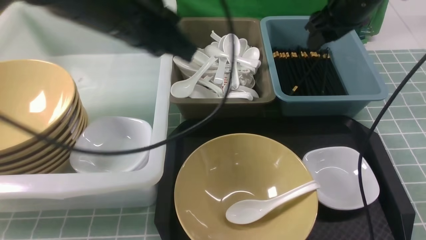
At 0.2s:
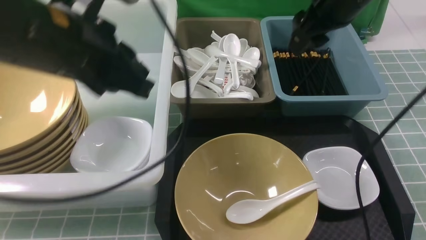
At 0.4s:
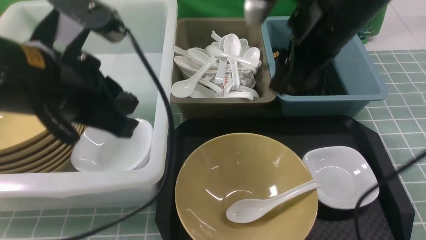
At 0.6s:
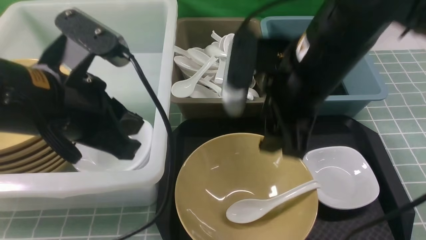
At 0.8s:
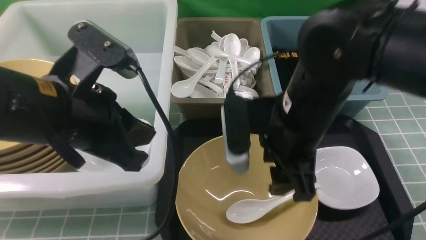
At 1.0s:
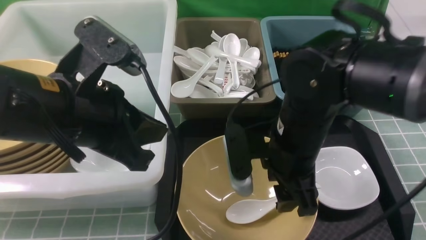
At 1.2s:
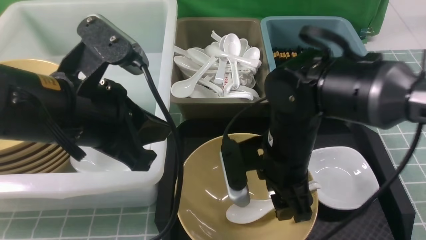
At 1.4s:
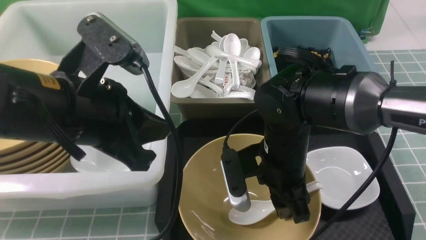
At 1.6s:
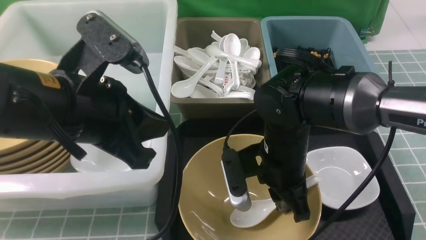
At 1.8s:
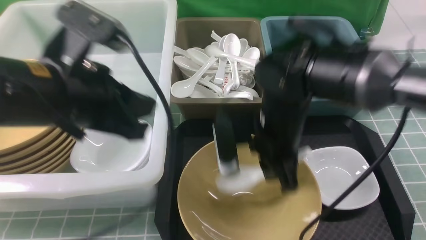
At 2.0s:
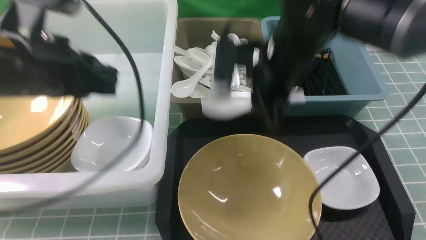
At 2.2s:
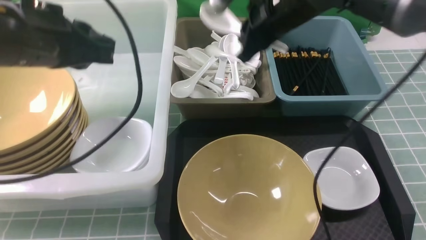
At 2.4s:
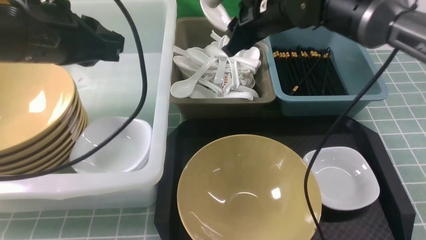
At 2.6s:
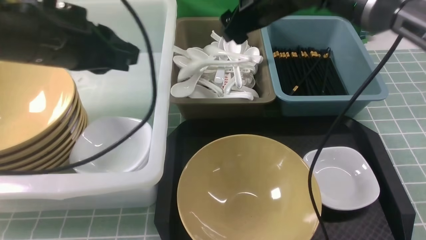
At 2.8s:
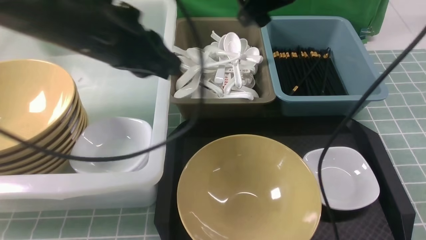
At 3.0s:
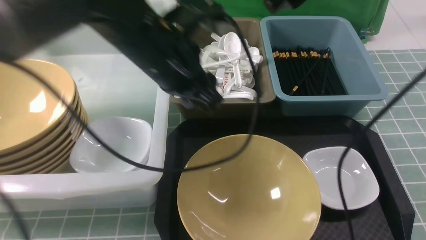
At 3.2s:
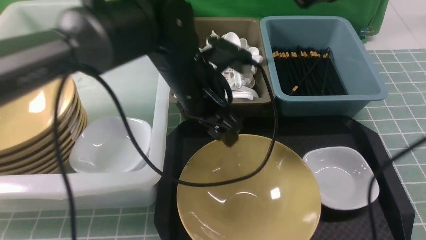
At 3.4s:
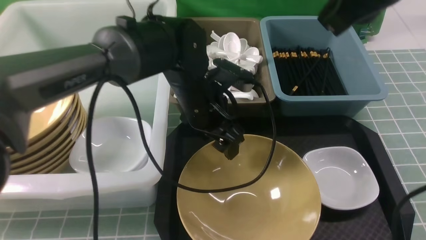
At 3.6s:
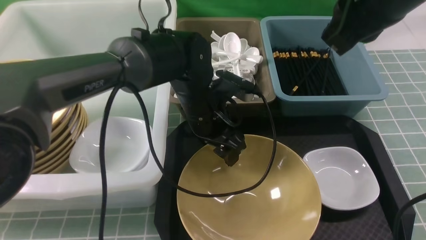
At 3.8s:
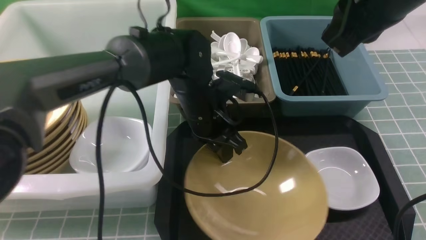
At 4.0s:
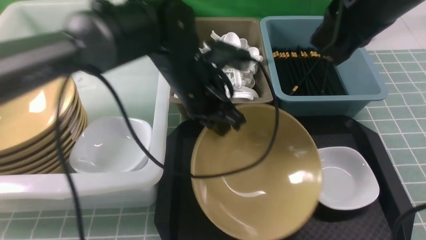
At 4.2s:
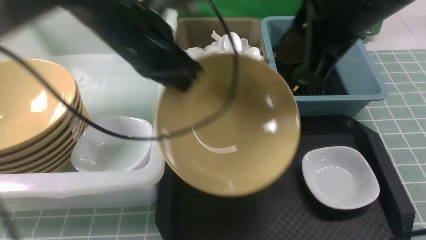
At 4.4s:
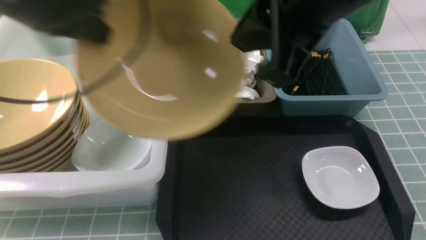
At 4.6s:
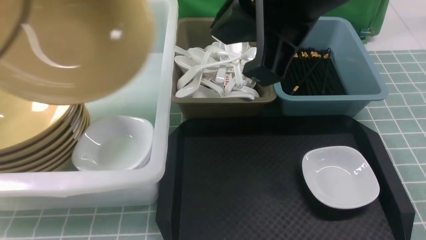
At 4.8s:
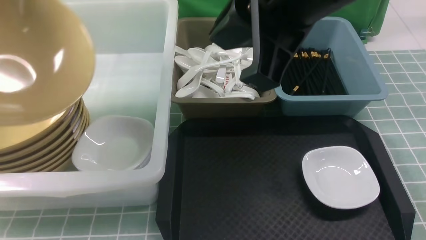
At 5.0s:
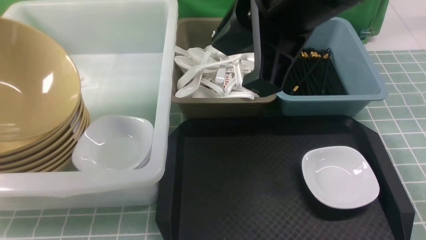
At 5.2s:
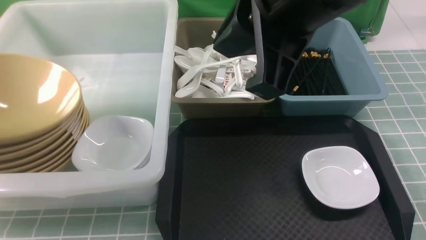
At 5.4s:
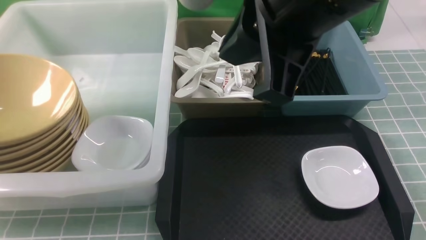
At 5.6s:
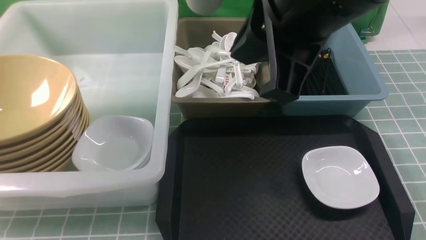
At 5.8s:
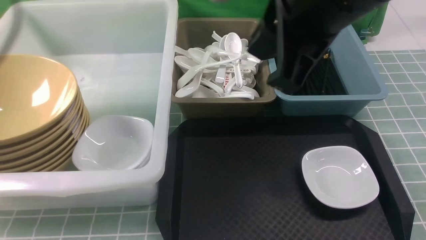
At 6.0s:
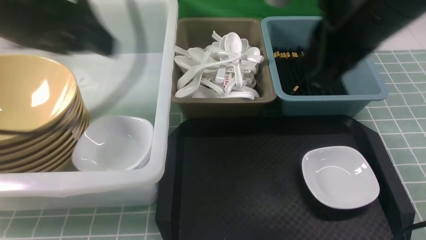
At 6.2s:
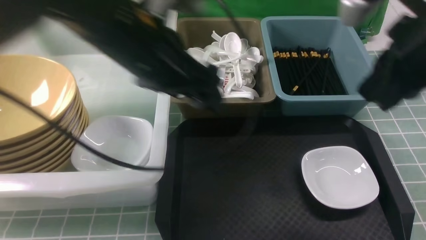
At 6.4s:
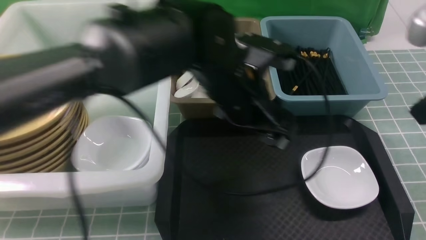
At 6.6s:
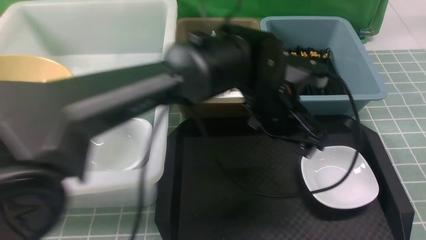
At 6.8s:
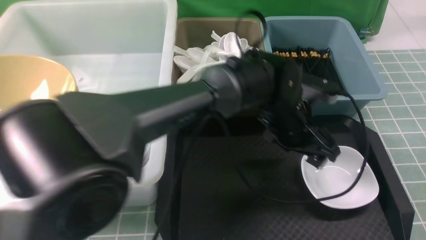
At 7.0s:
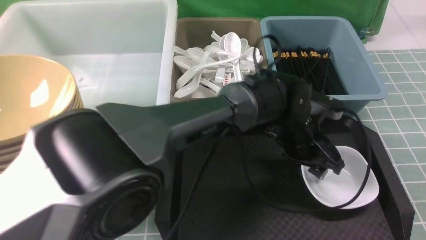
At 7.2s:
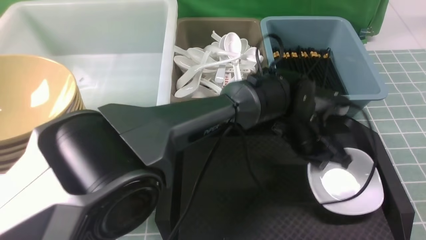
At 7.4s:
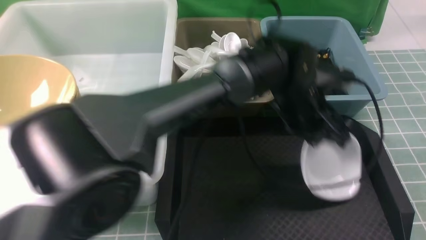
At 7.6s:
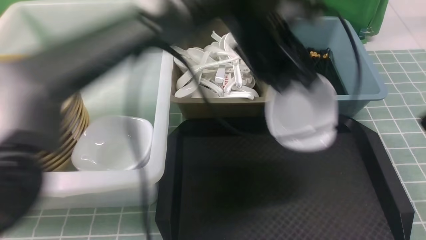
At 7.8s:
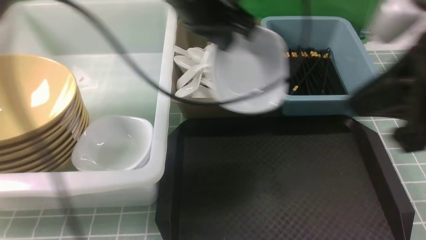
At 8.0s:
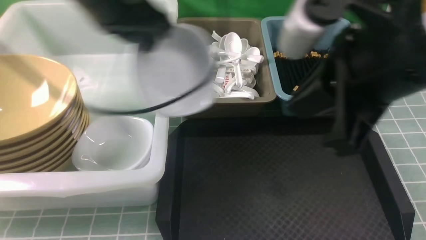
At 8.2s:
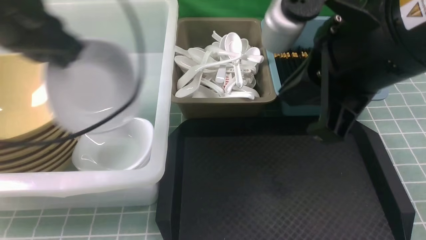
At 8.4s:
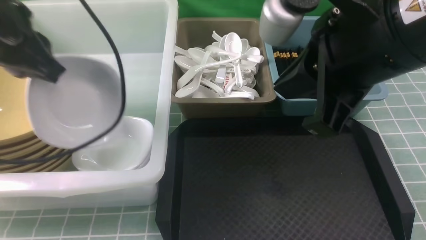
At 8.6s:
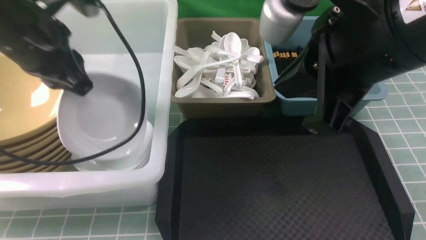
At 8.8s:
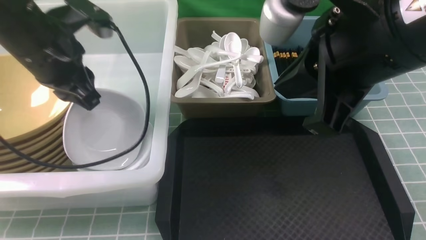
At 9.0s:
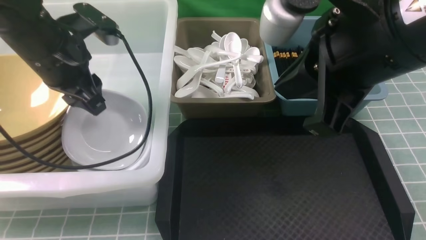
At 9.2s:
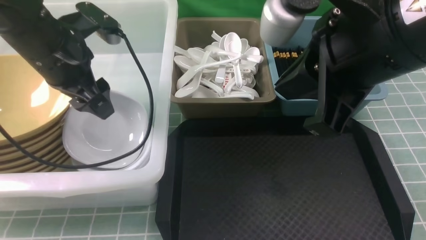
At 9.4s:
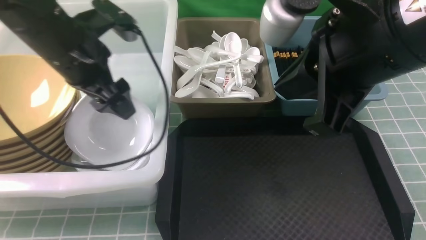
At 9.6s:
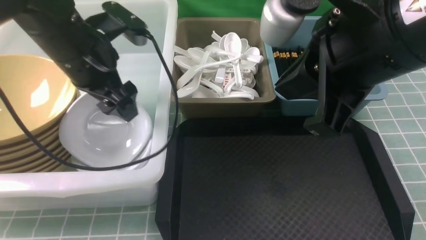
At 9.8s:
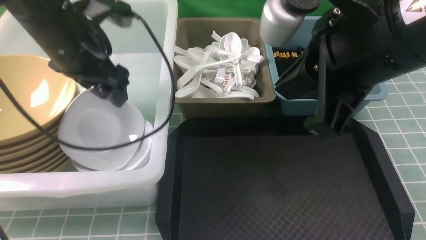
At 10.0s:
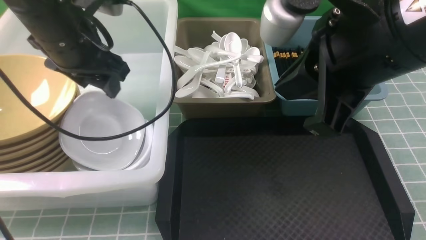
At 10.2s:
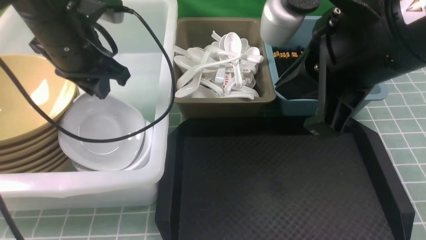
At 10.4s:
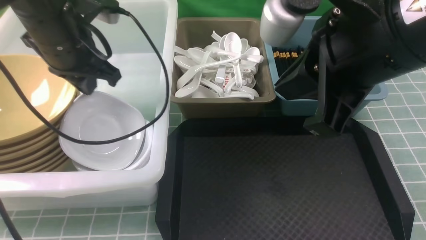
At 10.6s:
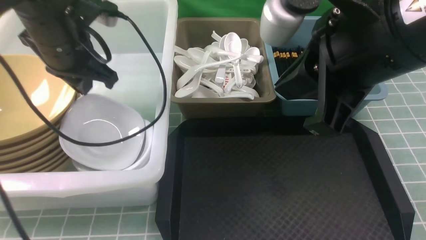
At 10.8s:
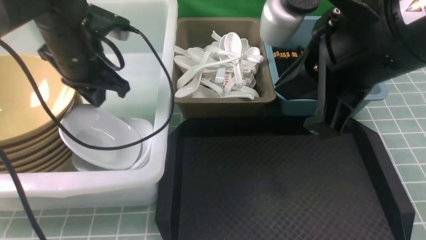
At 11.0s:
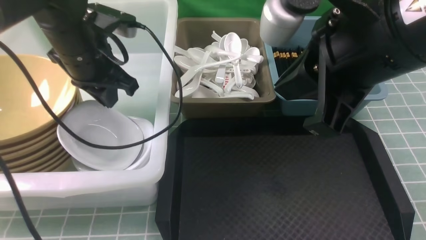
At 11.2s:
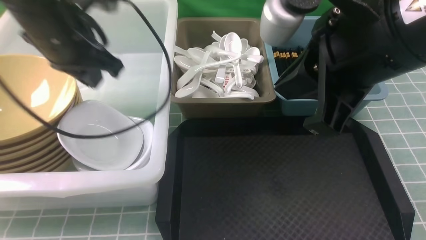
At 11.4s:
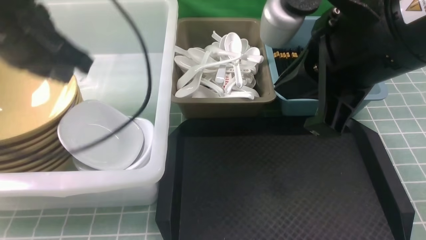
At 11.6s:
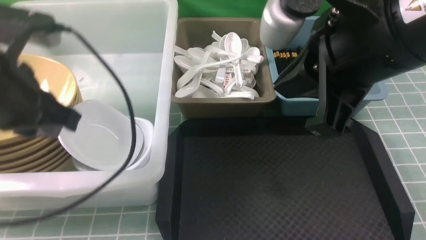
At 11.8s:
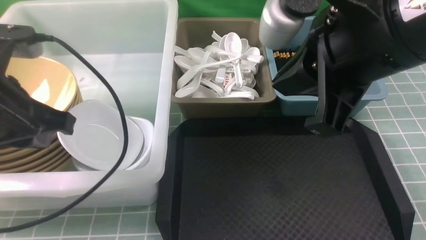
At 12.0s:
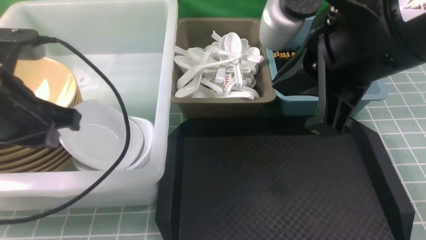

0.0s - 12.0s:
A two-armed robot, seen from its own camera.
Task of the whole recording: on blue table put chopsticks spoon bowls plates into blue grey white boxes.
Step, 0.0s - 1.8s: use the right arm to grab the soup spoon in the middle.
Step, 2.0s - 2.6s: use the right arm to put the soup spoon into the small storage box in the middle.
Step, 2.8s - 4.0s: use the left arm to grab the yellow noodle bowl on the left.
Step, 4.2s - 5.4s: use the left arm to put the noodle bowl into the large storage box on the left.
Step, 5.6s - 7.2s: use the left arm to grab the plate.
Step, 7.6s - 11.0s: use the left arm to put the plate into the large storage box on the left.
0.0s - 1.6s: The right gripper travels downward, backward and to the left by roughly 20 cm, and closes its fingers. The left gripper goes approximately 5 cm backward.
1.6s - 3.0s: The left gripper heads forward and to the right, covering about 15 cm, and opens up; the right gripper shifts some 20 cm upward, and opens.
3.0s - 4.4s: The left gripper is displaced to the left and upward by some 20 cm, and closes up, while the right gripper heads backward, covering roughly 15 cm, and closes its fingers.
4.4s - 6.0s: The right gripper moves to the right, some 5 cm, while the left gripper reaches approximately 15 cm to the left, then returns, and opens up.
6.0s - 7.6s: The right gripper travels backward and to the right by about 10 cm; the left gripper goes roughly 20 cm to the right, and closes up.
7.6s - 9.0s: The right gripper is displaced to the left by roughly 10 cm; the left gripper heads to the left, covering roughly 25 cm, and opens up.
9.0s - 10.4s: The left gripper closes up.
10.4s - 12.0s: The left gripper goes about 10 cm backward.

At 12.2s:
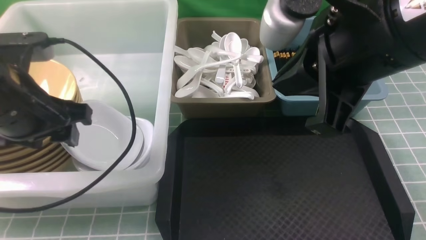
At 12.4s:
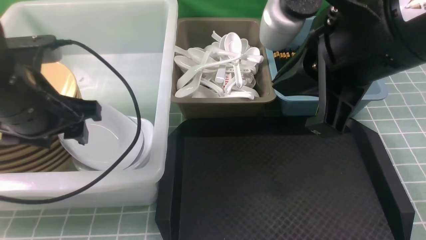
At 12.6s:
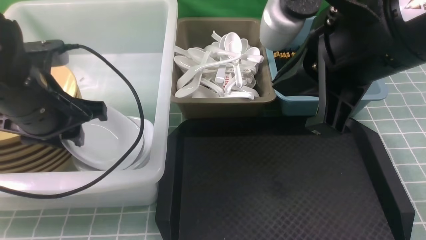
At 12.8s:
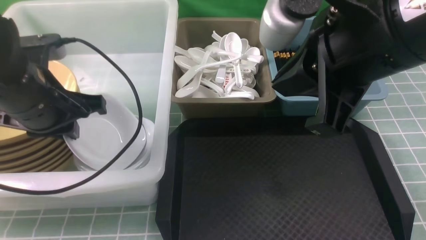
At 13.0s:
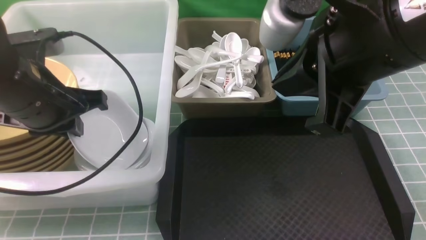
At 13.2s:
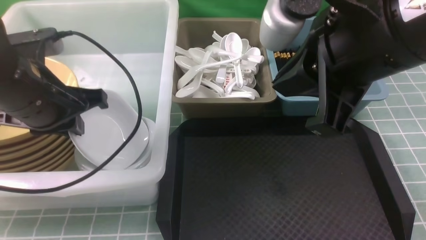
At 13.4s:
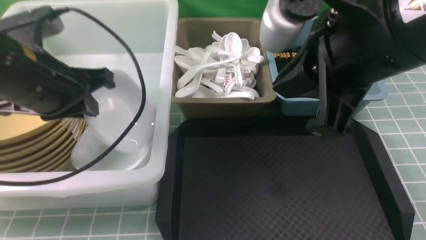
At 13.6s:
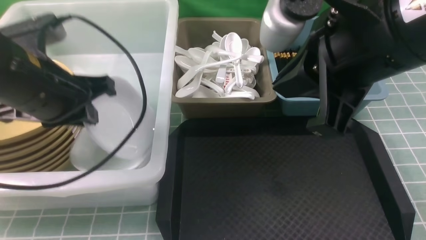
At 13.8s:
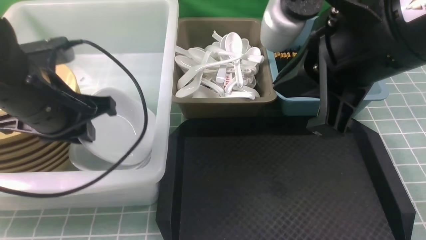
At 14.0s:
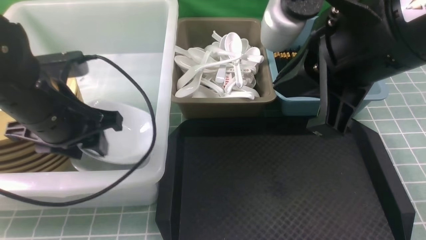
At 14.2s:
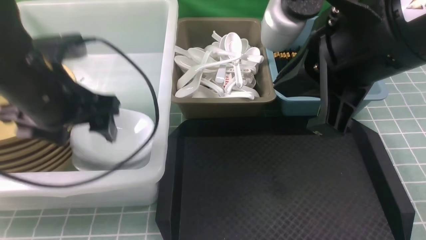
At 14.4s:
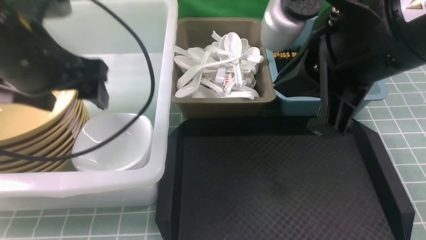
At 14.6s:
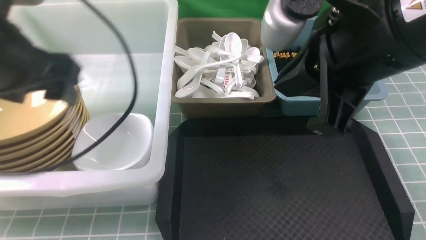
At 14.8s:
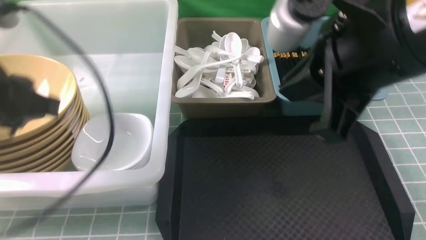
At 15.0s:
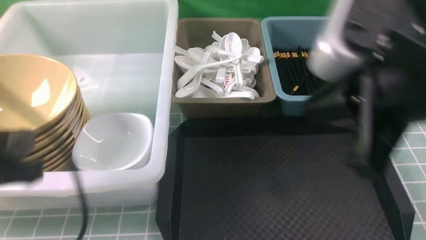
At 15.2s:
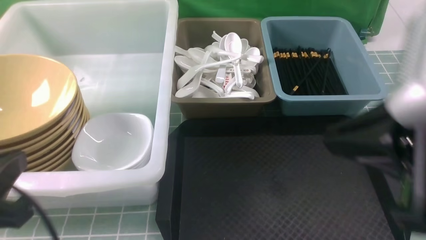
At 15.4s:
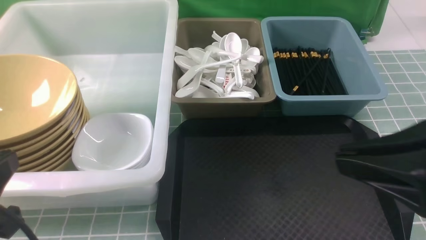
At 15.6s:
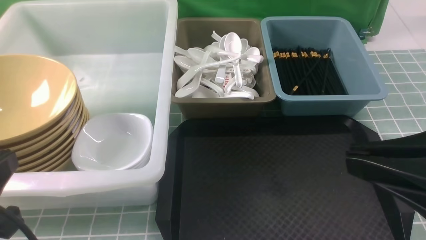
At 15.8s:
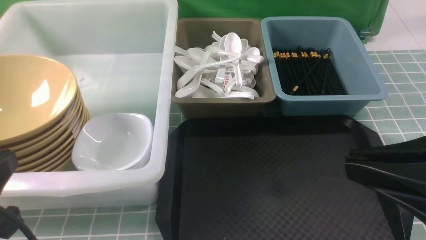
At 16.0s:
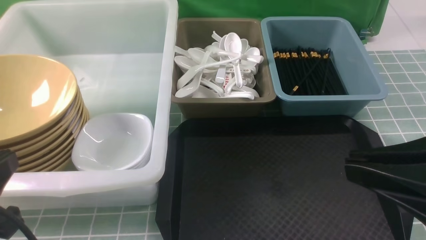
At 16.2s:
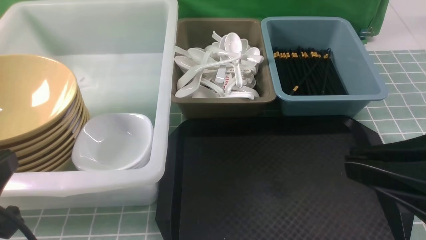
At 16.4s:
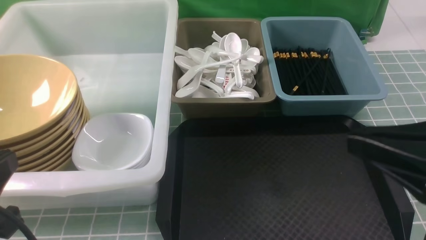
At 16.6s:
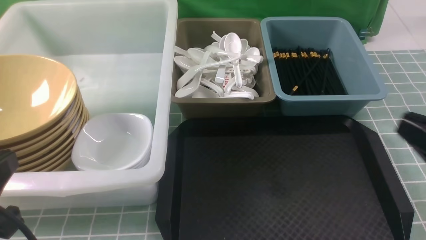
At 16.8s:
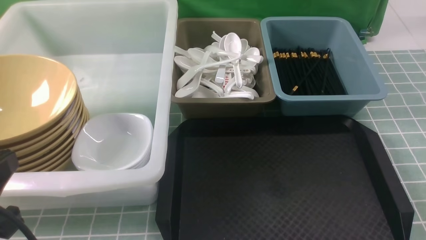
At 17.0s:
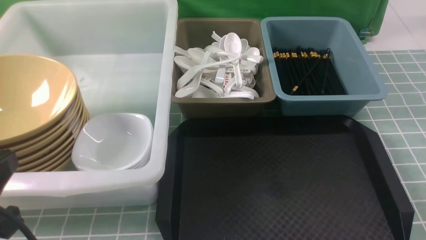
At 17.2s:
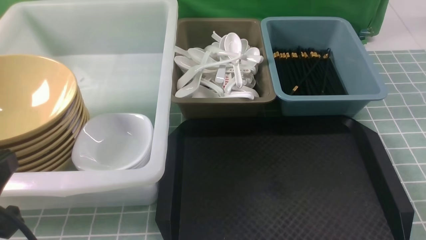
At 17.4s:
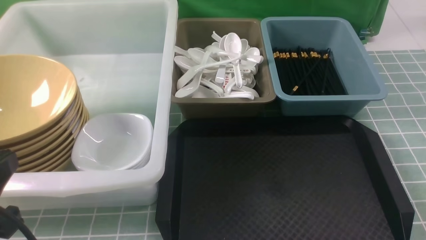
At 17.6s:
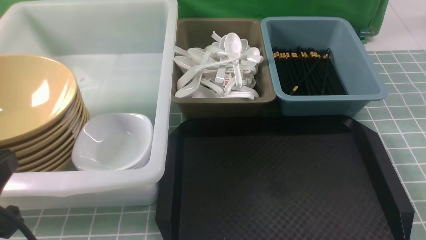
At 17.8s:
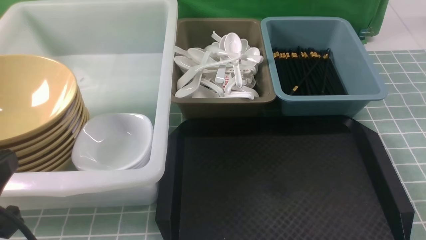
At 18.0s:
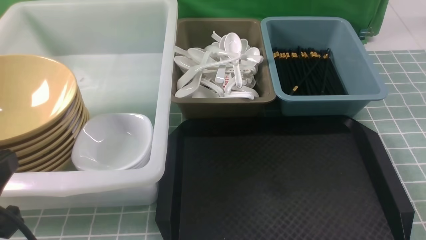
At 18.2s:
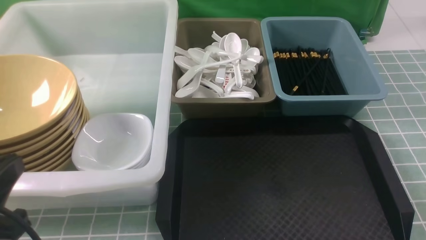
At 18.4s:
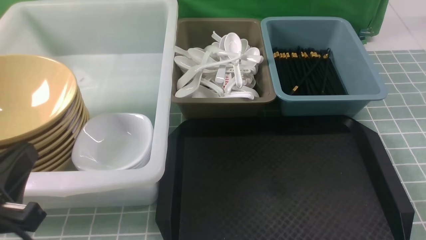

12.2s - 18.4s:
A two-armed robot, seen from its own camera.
Task of the whole recording: on blue table put chopsticks spoon bowls plates into blue grey white boxes.
12.2s - 13.8s: The grippers move only a little.
13.8s - 15.4s: The right gripper heads backward, to the right and downward, covering about 15 cm. The left gripper goes roughly 20 cm backward, and opens, then closes once more.
15.4s - 16.8s: The right gripper goes about 15 cm downward and to the right.
